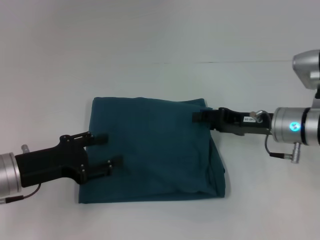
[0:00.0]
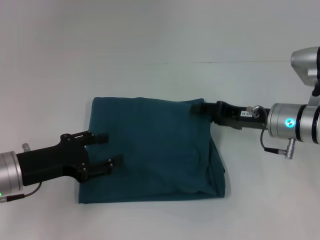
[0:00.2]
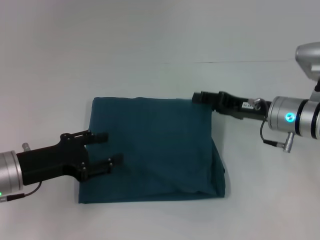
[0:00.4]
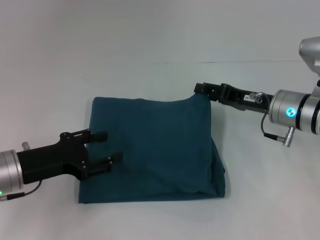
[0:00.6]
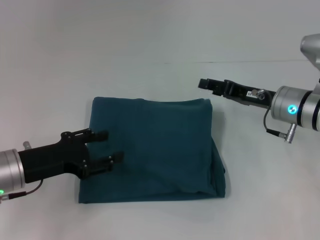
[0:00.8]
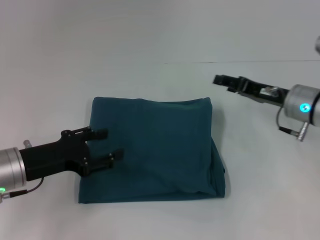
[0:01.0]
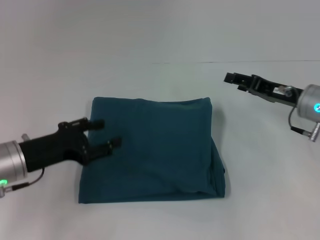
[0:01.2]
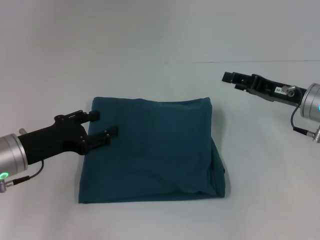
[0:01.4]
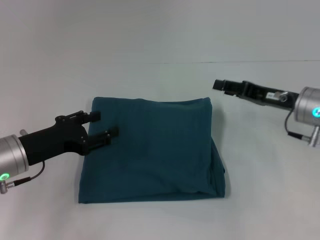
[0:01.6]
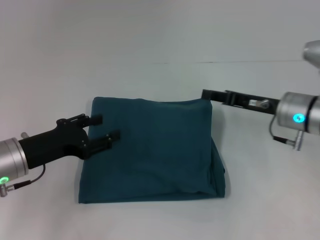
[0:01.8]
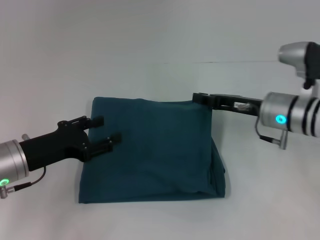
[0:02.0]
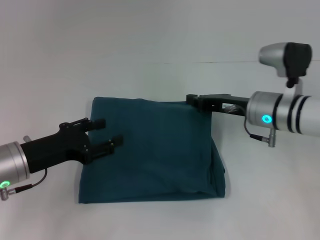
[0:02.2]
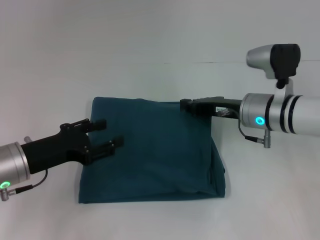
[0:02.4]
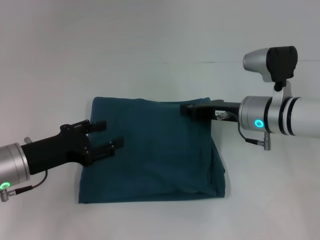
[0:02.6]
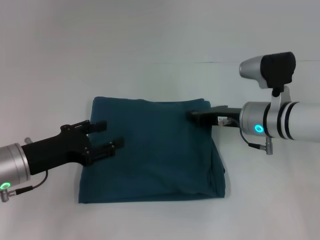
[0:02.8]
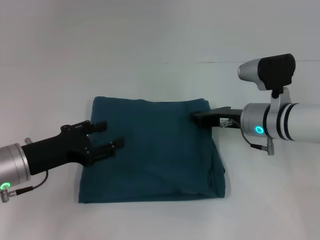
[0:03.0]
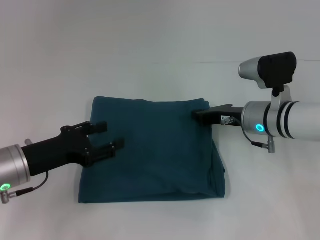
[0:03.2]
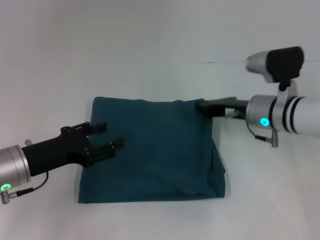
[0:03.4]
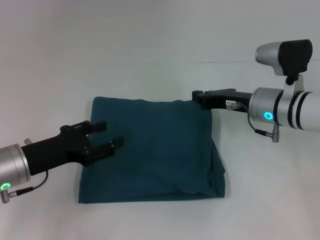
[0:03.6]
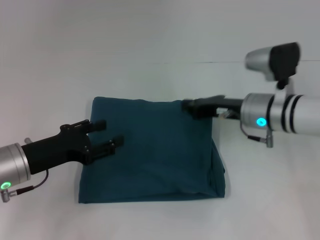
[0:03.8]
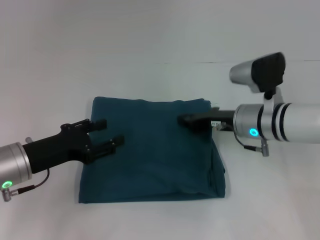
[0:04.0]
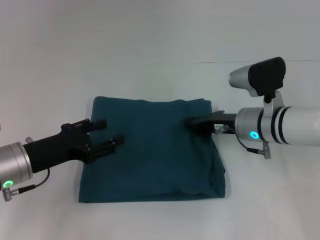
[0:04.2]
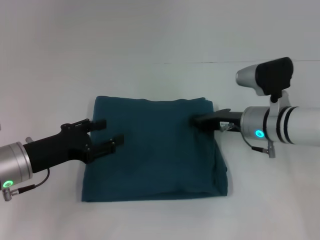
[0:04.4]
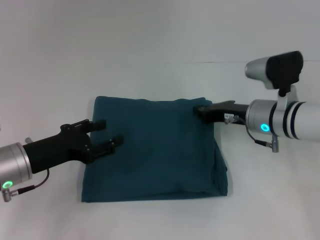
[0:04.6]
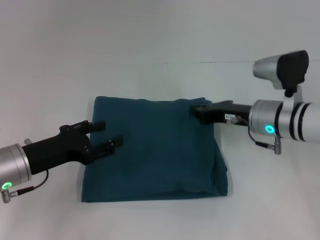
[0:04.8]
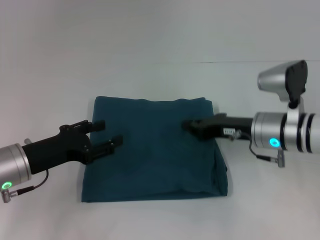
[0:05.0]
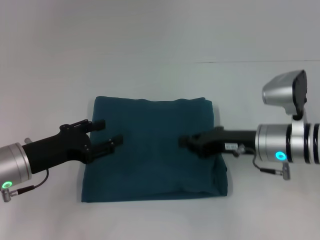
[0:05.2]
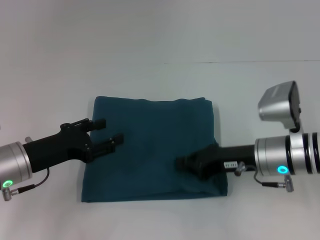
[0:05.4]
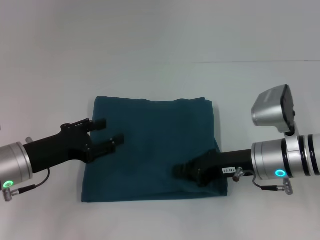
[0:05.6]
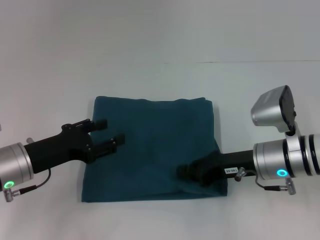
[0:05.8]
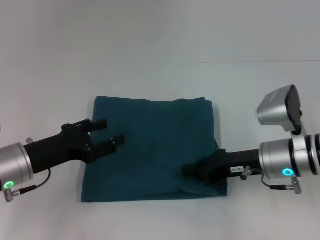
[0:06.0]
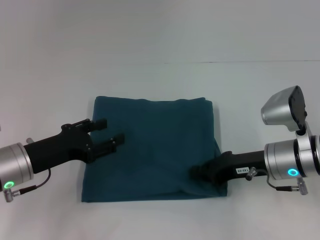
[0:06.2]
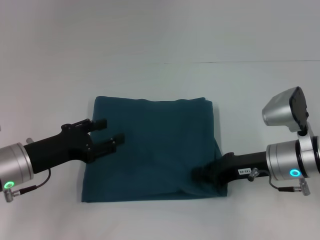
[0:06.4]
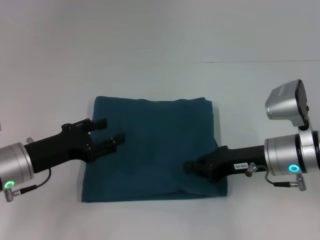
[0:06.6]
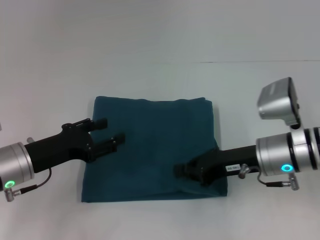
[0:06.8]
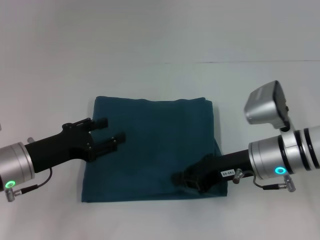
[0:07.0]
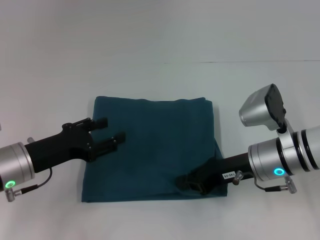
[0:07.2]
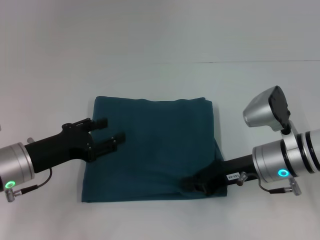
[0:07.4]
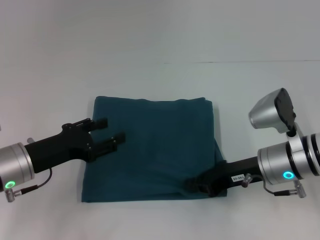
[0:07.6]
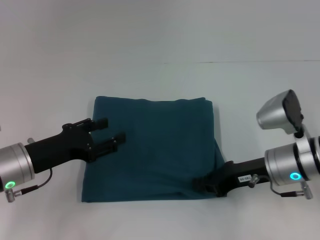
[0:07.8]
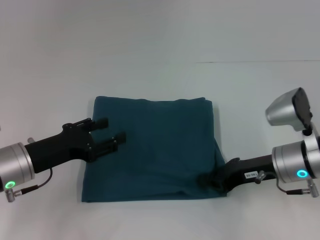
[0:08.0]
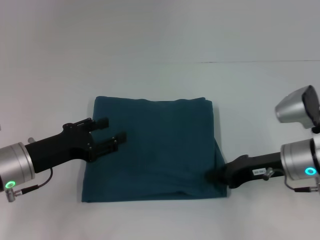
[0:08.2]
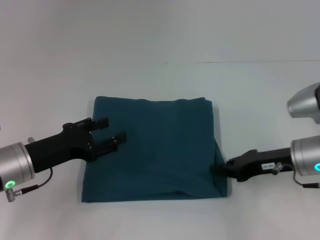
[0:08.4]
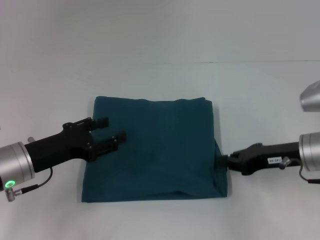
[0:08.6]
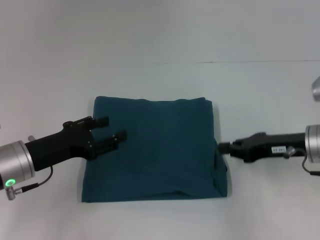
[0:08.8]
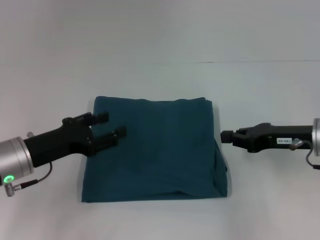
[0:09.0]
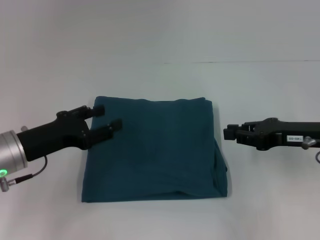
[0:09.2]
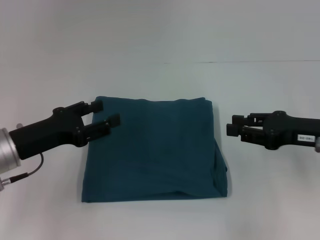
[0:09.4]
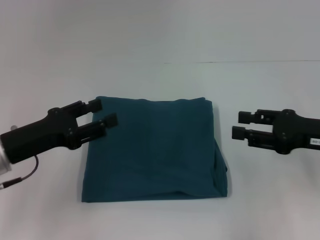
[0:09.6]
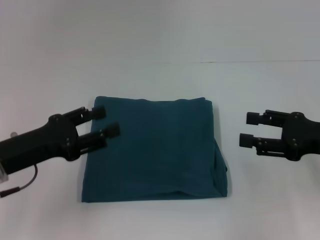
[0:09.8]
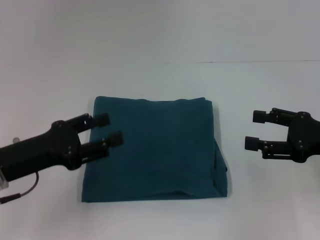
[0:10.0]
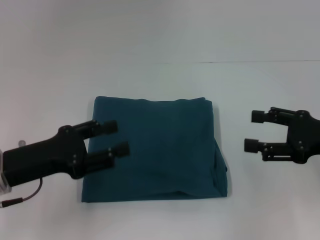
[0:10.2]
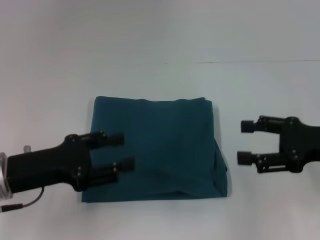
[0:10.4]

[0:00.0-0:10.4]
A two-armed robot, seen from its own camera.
0:00.0 to 0:01.4: The grippers move only a little.
0:01.4 to 0:03.0: The right gripper goes roughly 10 cm to the left, and closes.
0:03.0 to 0:04.4: The grippers stay close to where they were, moving slightly.
0:04.4 to 0:06.0: The right gripper travels backward by approximately 5 cm.
0:06.0 to 0:07.4: The grippers stay close to where they were, moving slightly.
0:07.4 to 0:09.0: The right gripper travels to the right by about 10 cm.
0:09.0 to 0:10.4: The right gripper changes place by some 5 cm, and opens. Meanwhile the left gripper changes place by some 5 cm.

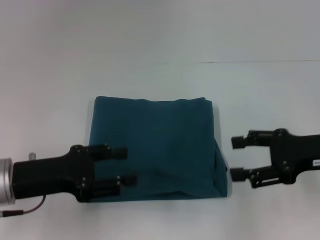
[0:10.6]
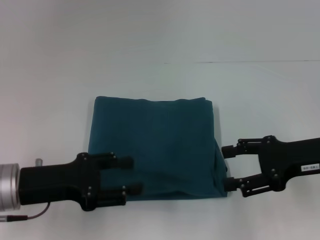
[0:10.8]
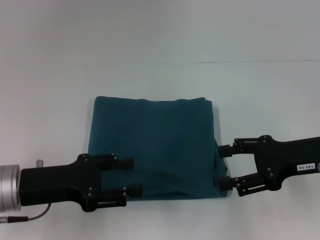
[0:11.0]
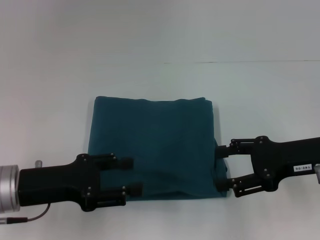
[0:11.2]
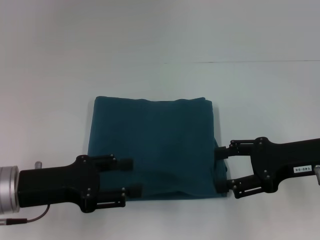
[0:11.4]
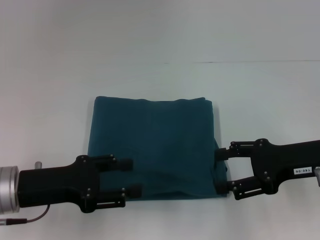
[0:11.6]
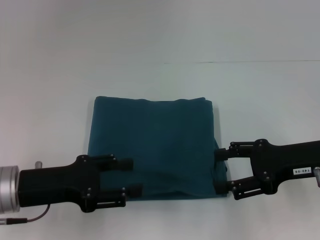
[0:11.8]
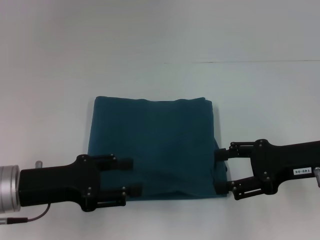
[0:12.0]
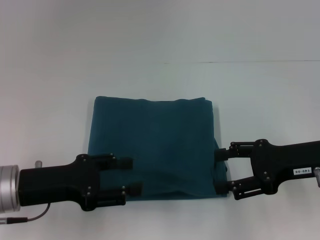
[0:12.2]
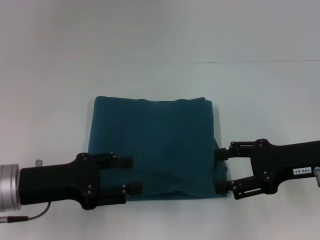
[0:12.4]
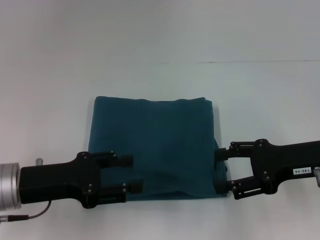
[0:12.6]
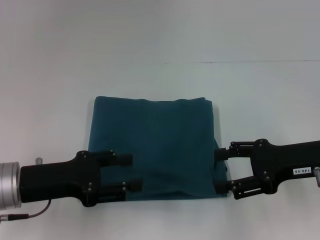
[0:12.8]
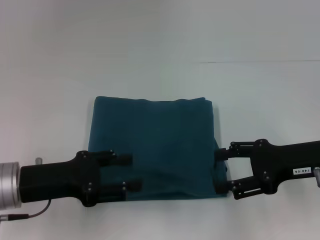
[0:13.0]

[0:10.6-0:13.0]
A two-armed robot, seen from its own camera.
0:10.6 to 0:11.8: The grippers make only small movements.
0:11.8 to 0:13.0: Both grippers stay put.

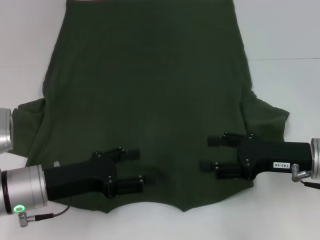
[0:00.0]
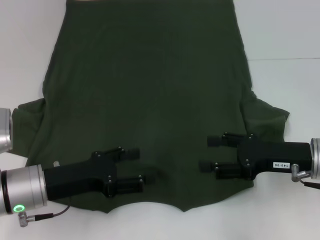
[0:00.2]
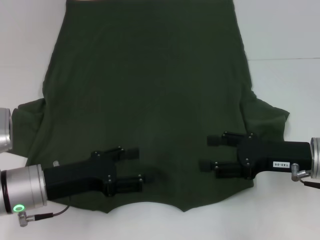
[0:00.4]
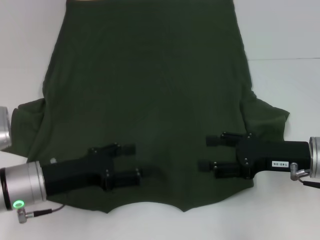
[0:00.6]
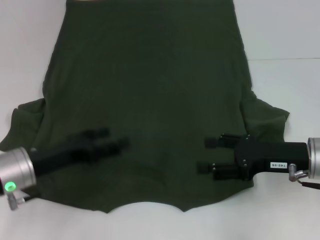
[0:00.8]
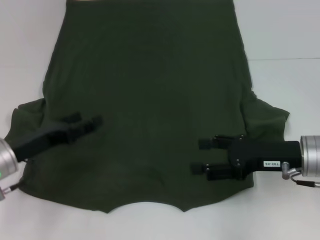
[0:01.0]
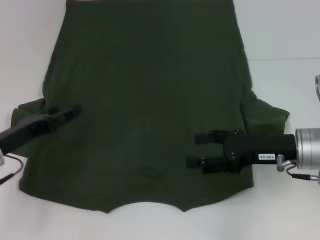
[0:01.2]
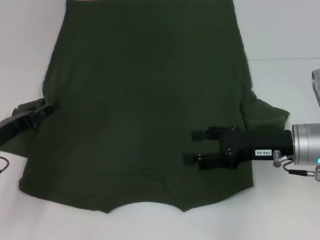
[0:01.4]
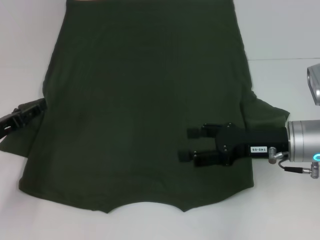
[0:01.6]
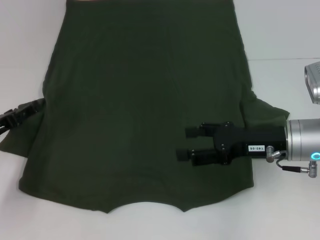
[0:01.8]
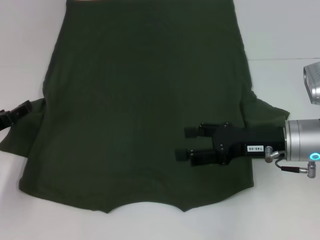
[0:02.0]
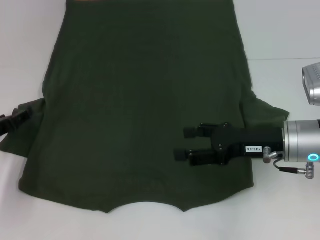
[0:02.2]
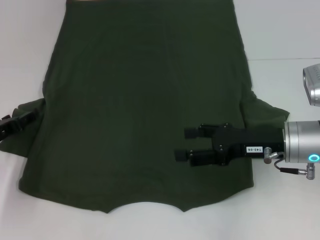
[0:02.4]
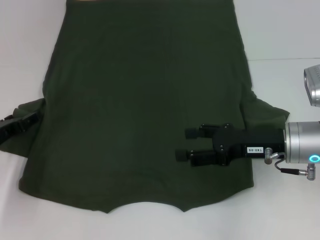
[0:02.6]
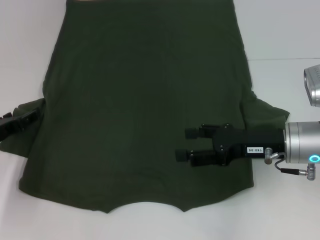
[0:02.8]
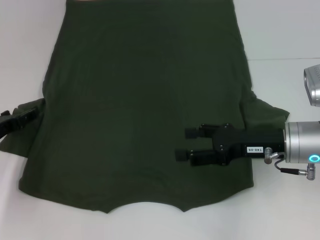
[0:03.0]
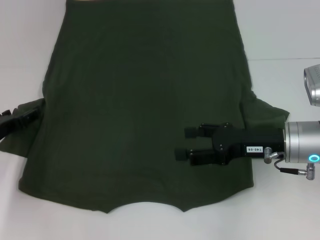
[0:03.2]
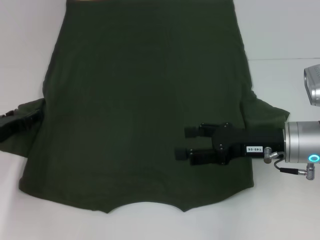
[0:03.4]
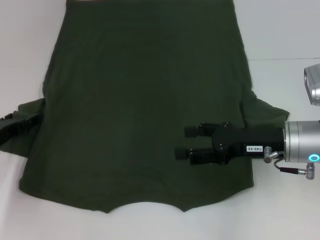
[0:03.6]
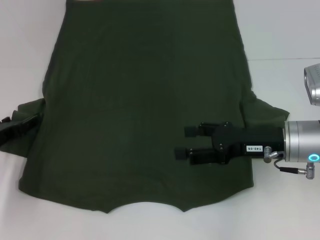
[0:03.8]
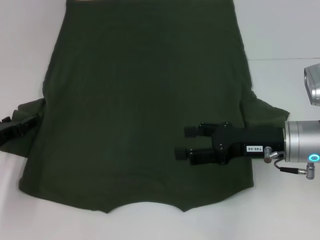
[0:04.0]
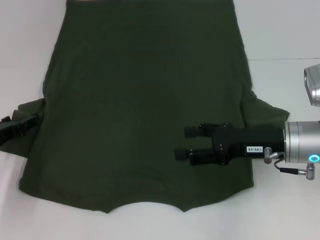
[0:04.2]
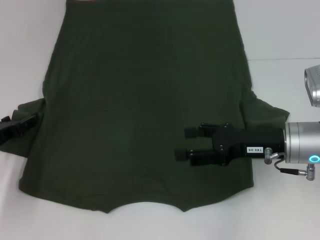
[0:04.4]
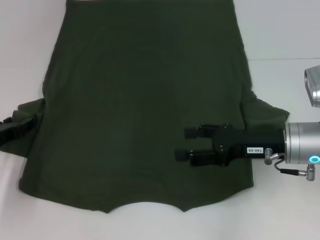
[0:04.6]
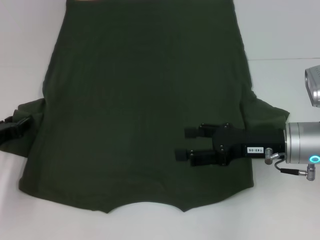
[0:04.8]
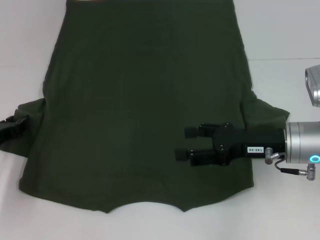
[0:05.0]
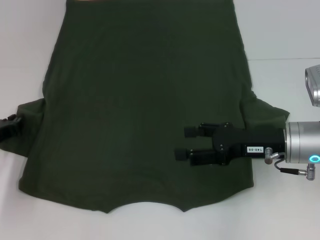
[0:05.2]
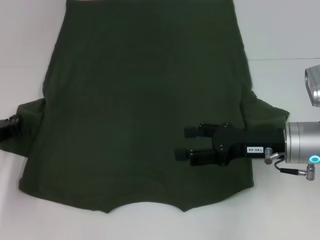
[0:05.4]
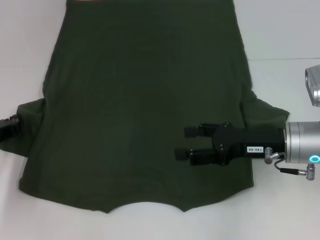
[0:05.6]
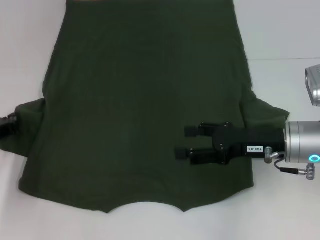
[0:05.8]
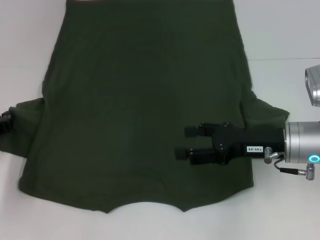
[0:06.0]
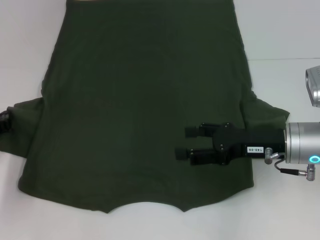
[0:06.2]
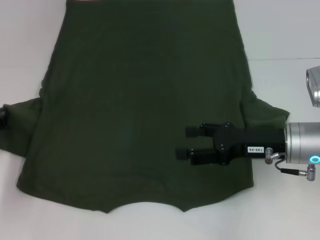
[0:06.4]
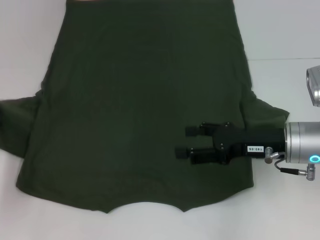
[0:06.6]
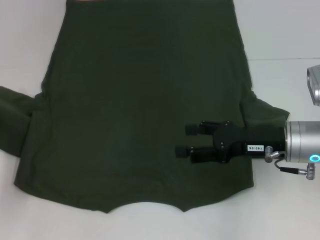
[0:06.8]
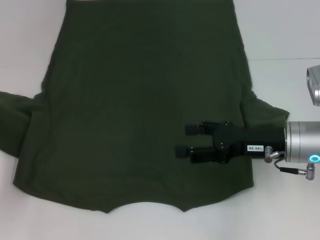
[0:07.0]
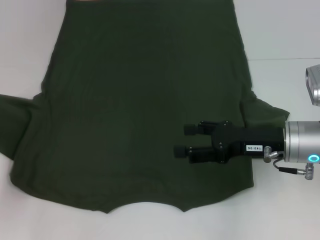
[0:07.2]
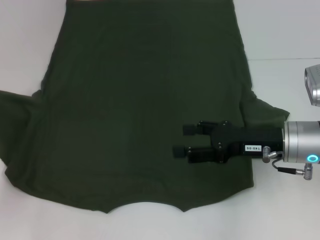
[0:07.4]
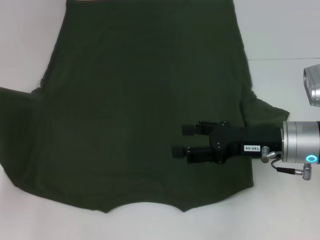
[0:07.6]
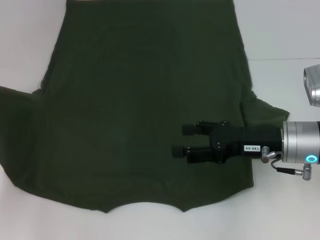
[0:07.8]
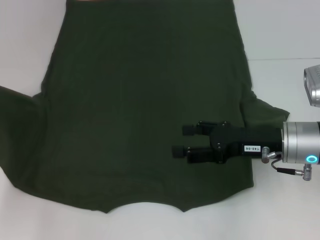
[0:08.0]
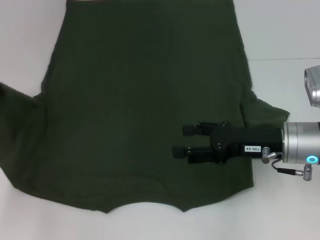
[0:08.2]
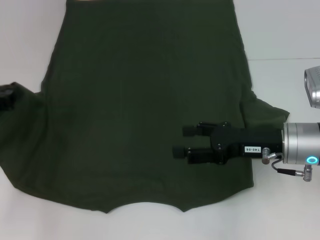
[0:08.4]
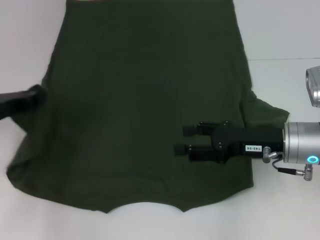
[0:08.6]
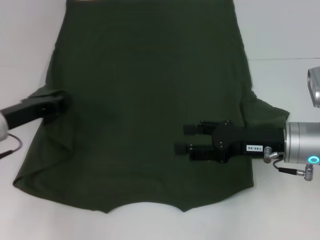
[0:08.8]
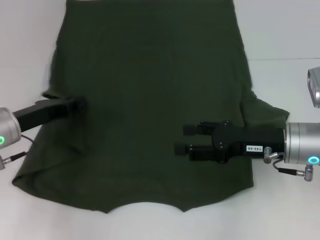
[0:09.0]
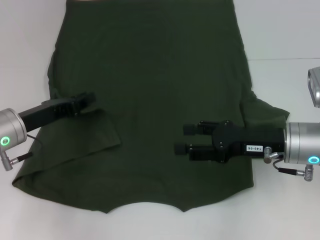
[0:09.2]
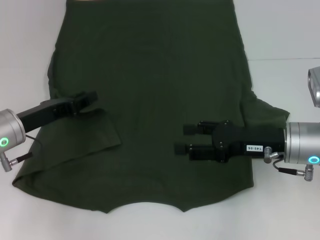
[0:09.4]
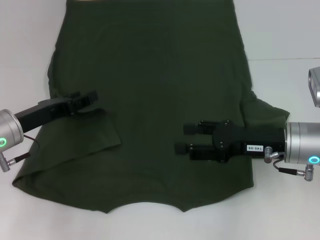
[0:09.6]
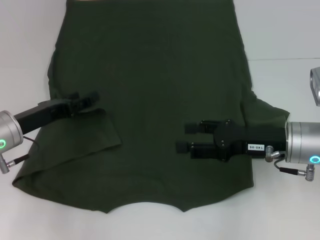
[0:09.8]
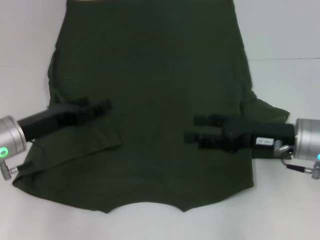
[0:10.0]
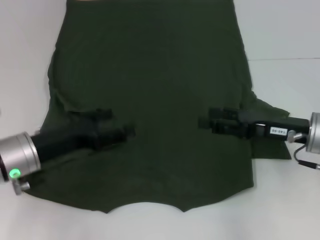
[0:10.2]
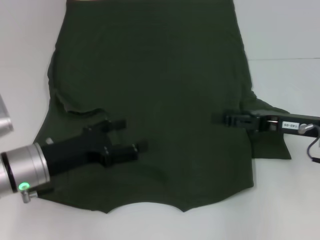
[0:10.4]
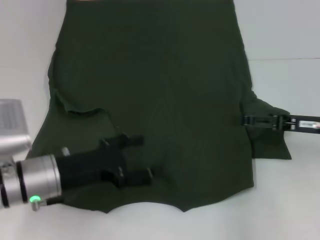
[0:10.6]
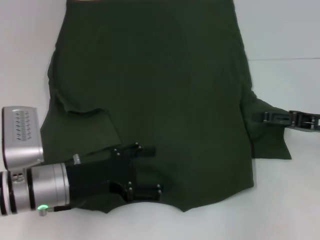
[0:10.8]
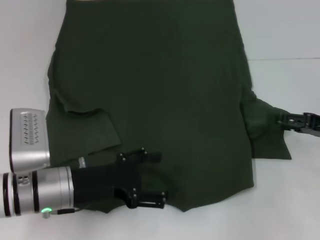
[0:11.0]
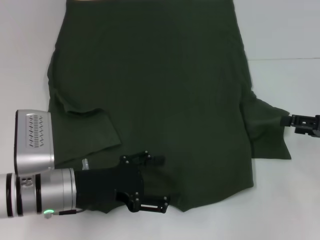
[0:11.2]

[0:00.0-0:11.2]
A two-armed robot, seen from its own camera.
Step, 0:00.0 to 0:09.6: Fold the bottom left sleeve with your left hand.
0:00.0 to 0:01.6: The left gripper heads to the left, covering roughly 10 cm.
0:01.6 to 0:04.8: The grippers move only a little.
0:04.8 to 0:06.4: The left gripper closes.
0:06.4 to 0:08.0: The grippers move only a little.
0:08.0 to 0:09.6: The left gripper travels to the right by about 10 cm, and opens.
0:09.6 to 0:11.2: The right gripper heads to the right, covering roughly 15 cm; the left gripper is displaced to the right and backward by approximately 10 cm, and opens.
